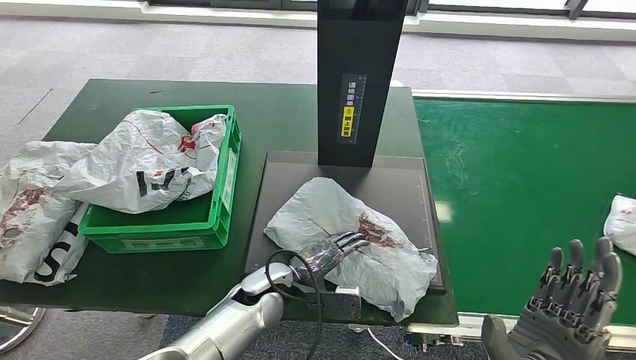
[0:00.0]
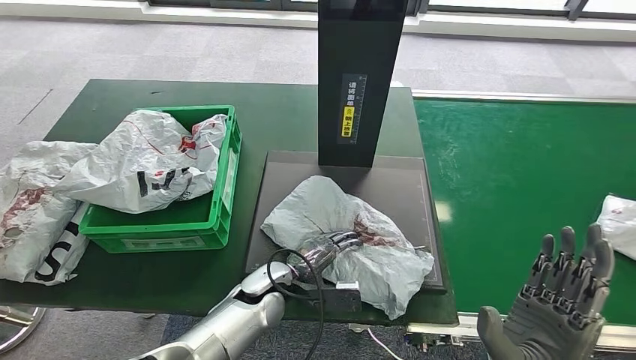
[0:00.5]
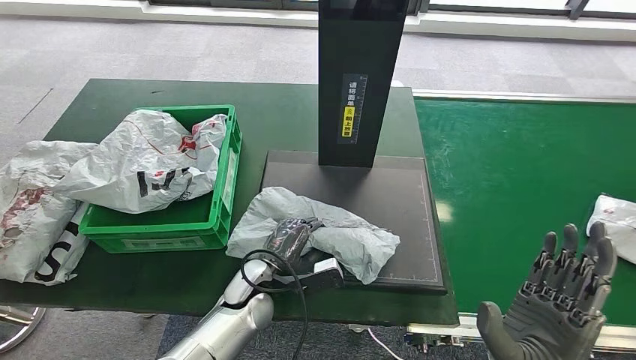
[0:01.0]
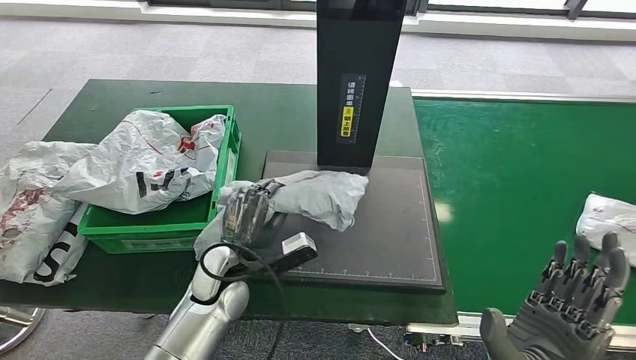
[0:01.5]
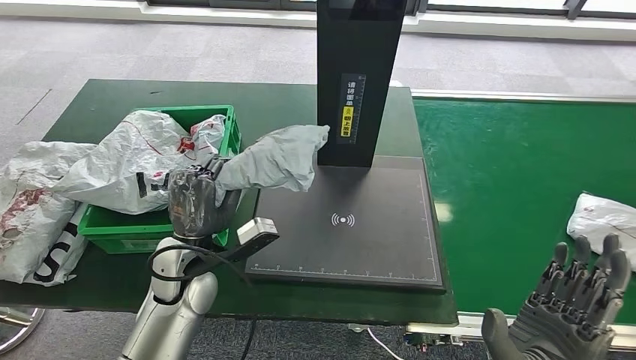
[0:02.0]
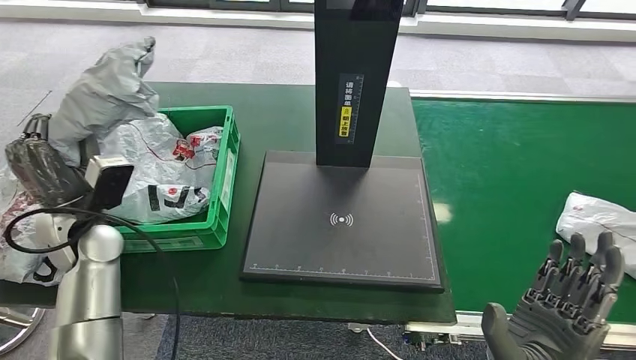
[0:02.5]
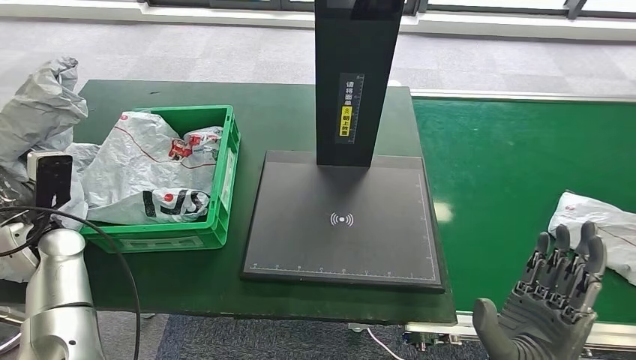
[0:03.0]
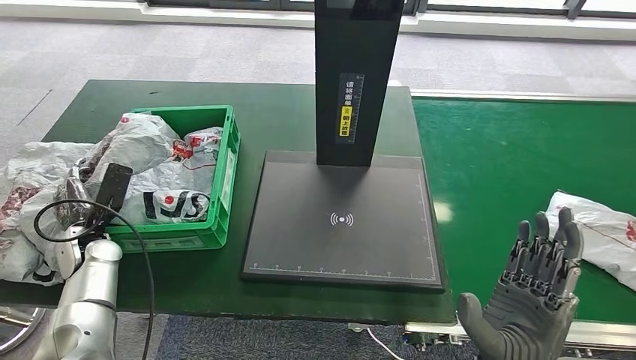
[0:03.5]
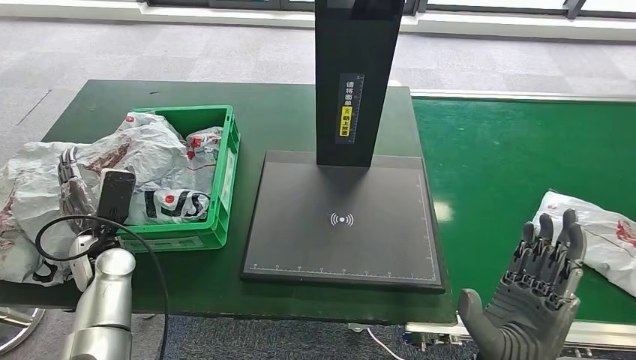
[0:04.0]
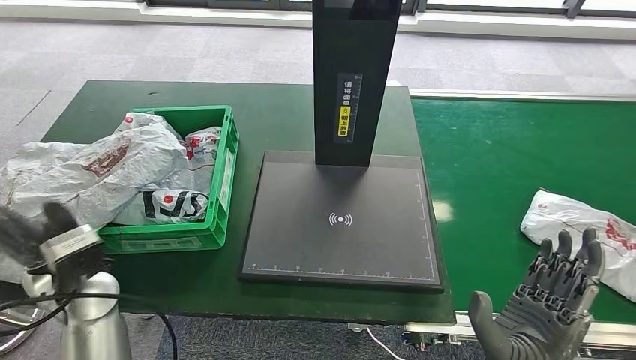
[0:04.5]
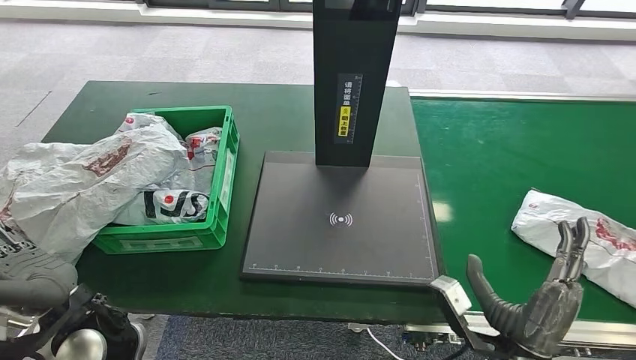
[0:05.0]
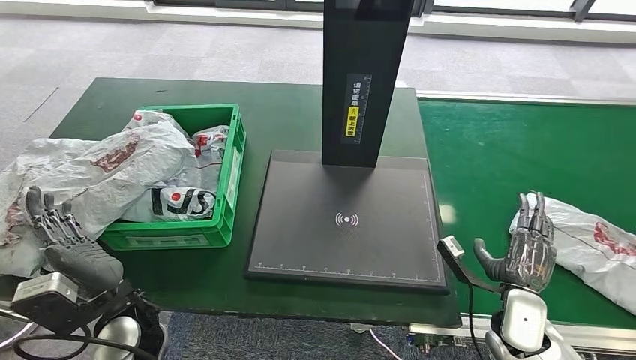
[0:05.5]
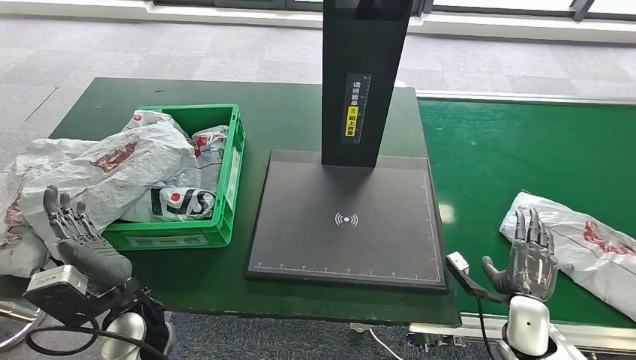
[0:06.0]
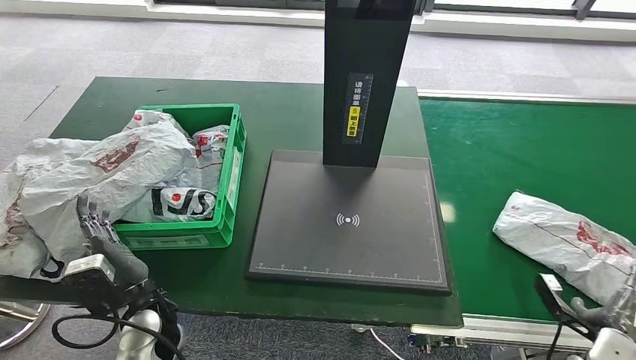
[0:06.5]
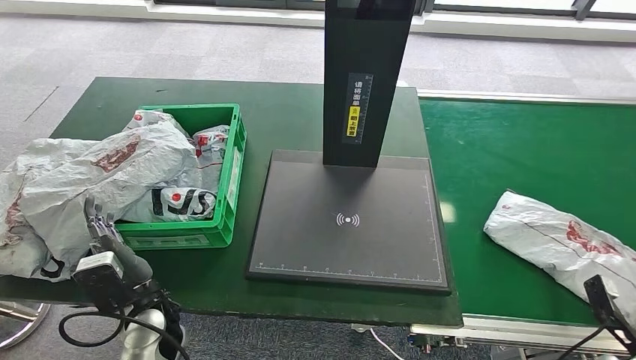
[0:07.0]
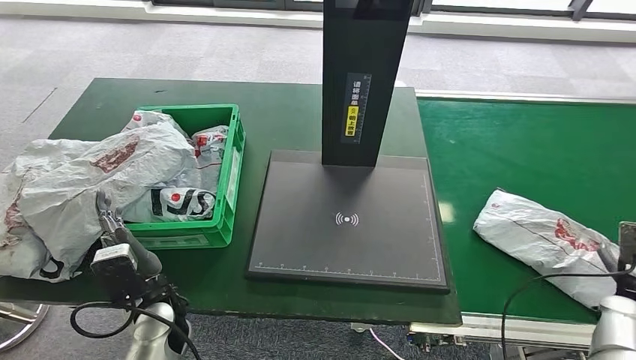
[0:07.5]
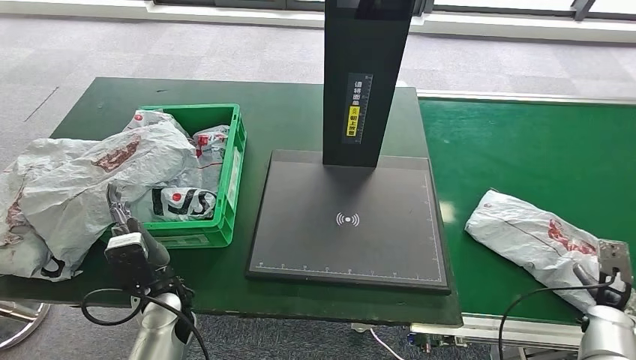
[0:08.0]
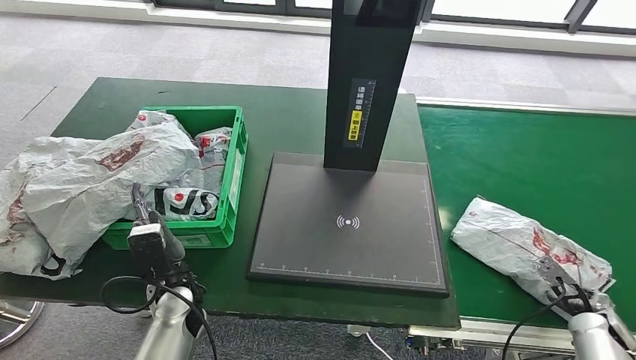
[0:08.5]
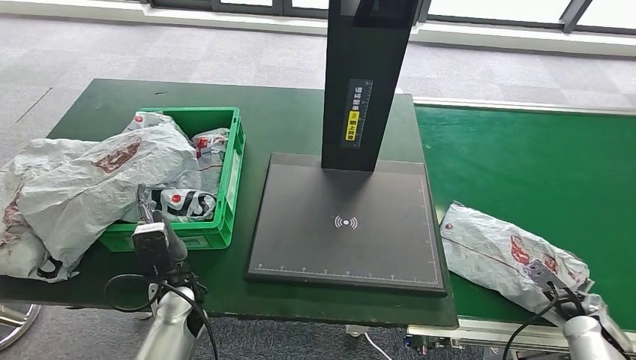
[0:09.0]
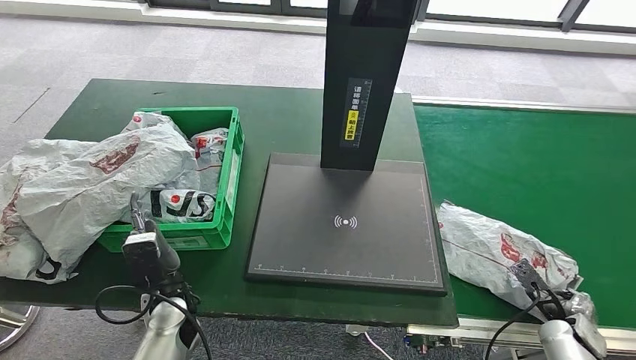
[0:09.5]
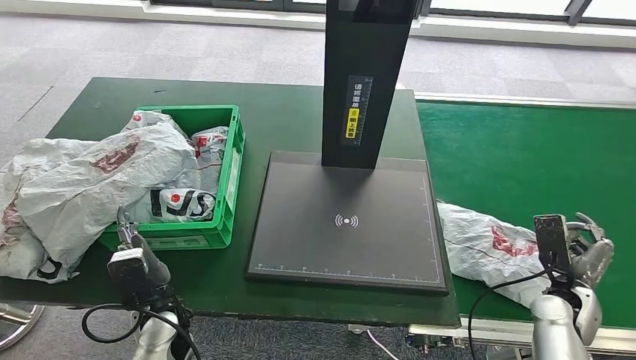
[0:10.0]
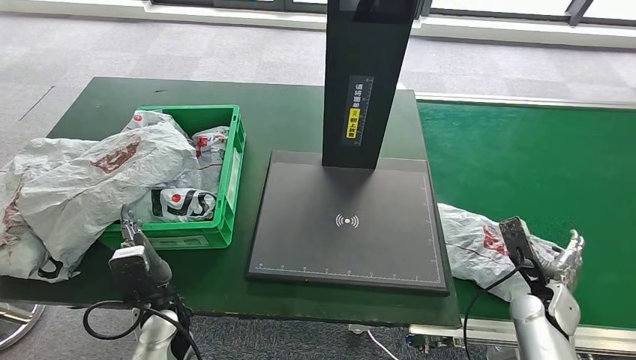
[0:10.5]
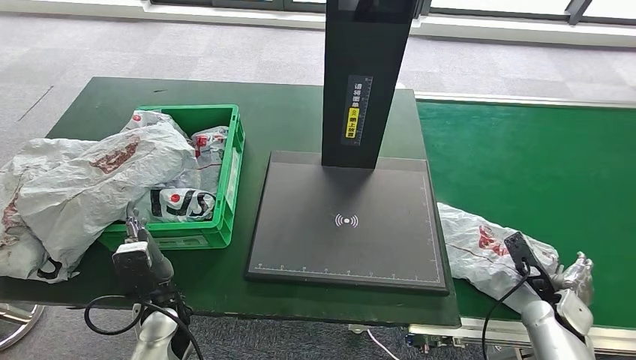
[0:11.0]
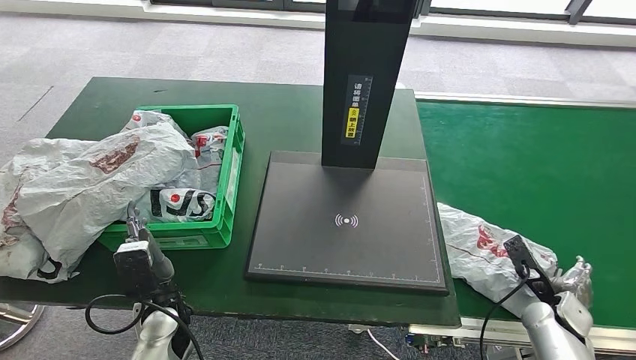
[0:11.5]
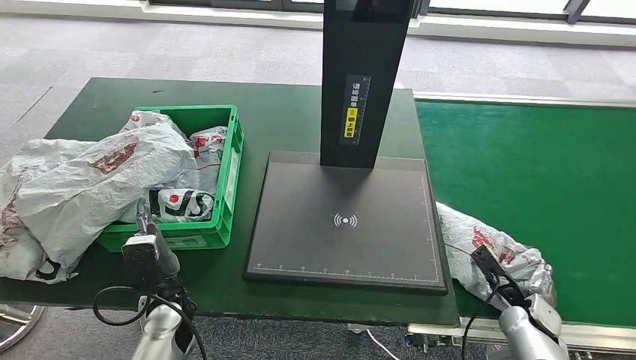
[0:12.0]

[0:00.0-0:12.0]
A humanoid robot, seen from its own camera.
Step, 0:01.0 to 0:02.0: Pick up the parcel from the inbound machine.
Step, 0:02.5 to 0:06.0: Place the parcel into the delivery box.
0:00.0 to 0:02.0: The left hand goes about 15 cm to the left and upward.
0:06.0 to 0:08.0: The left hand changes place by about 5 cm. The right hand goes approximately 10 cm to the right.
0:08.0 to 0:10.0: The right hand goes approximately 10 cm to the left.
0:10.0 to 0:12.0: The right hand shifts approximately 5 cm downward.

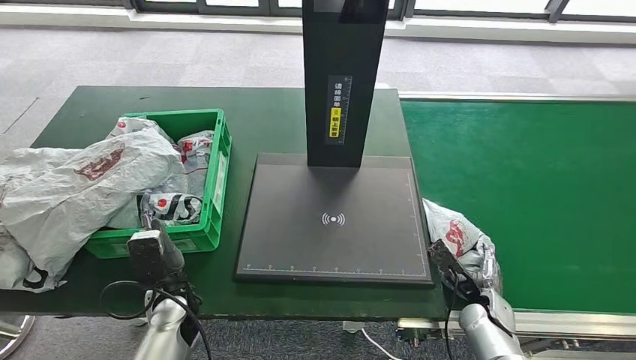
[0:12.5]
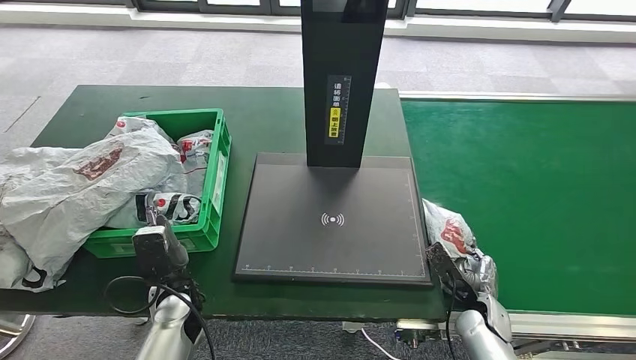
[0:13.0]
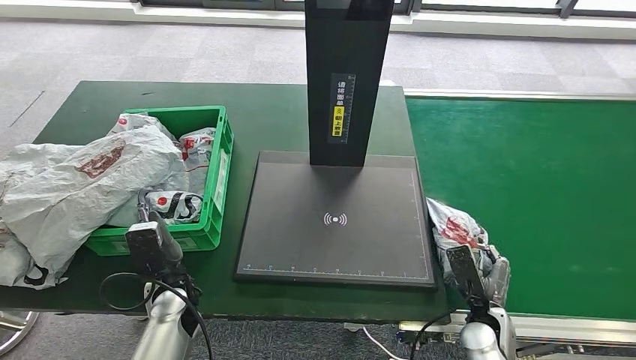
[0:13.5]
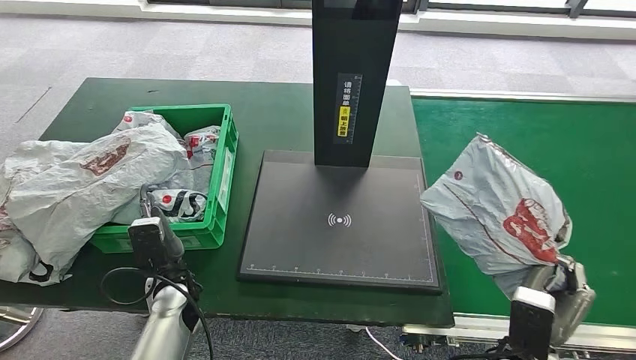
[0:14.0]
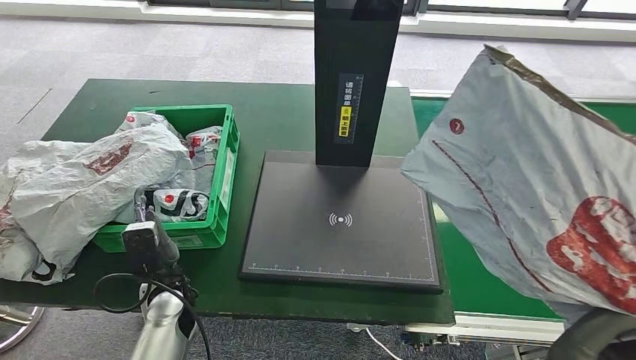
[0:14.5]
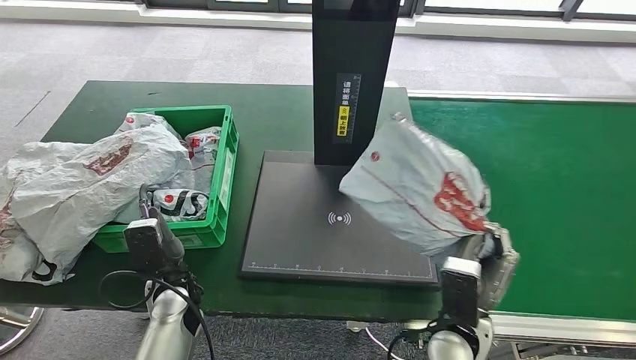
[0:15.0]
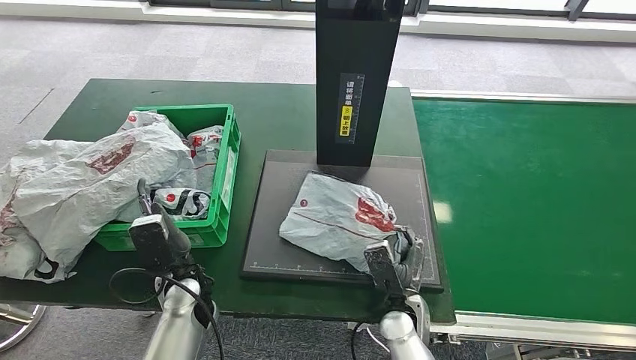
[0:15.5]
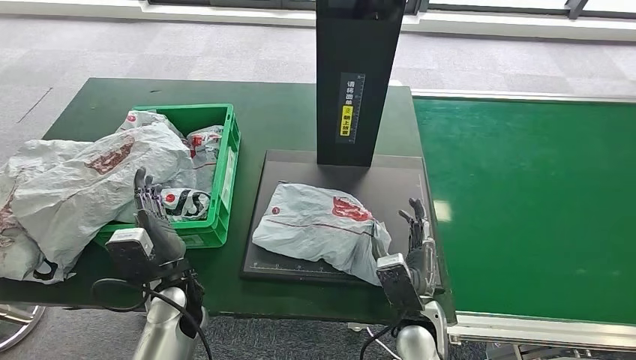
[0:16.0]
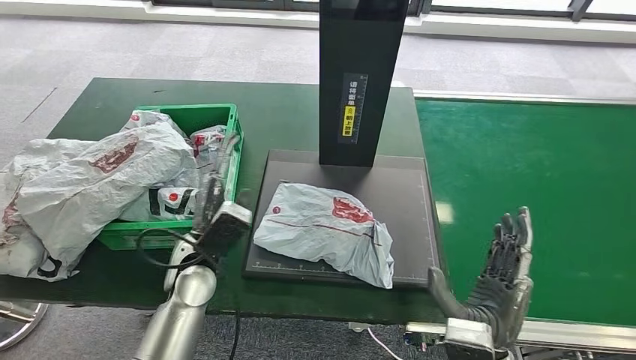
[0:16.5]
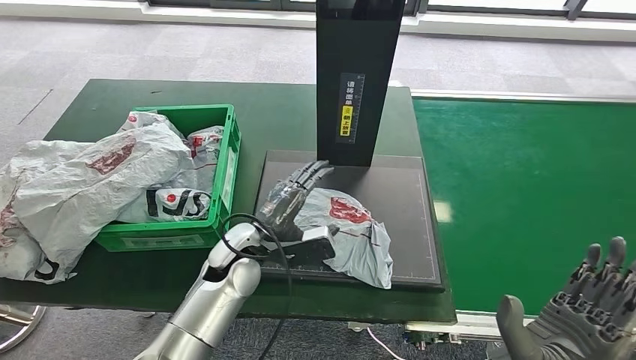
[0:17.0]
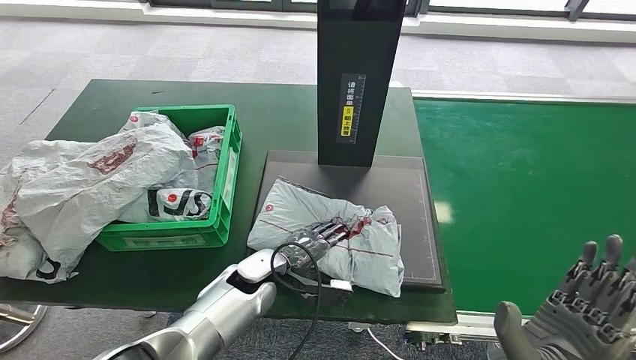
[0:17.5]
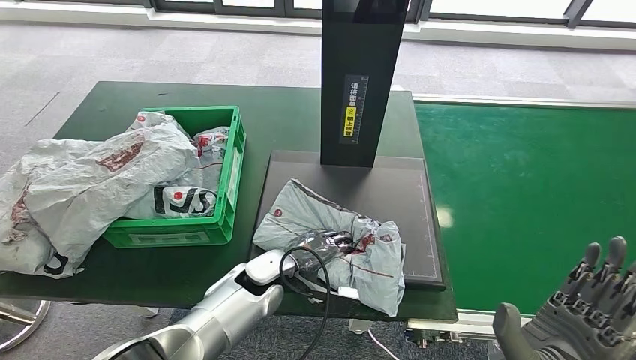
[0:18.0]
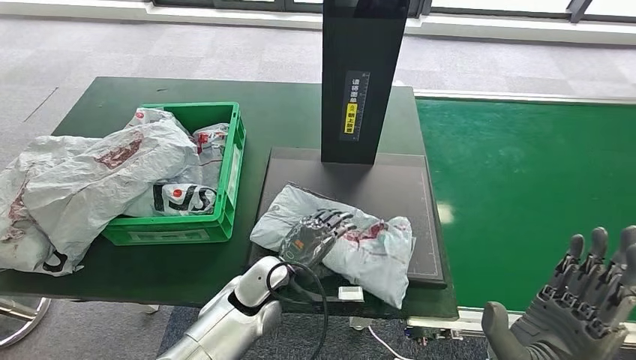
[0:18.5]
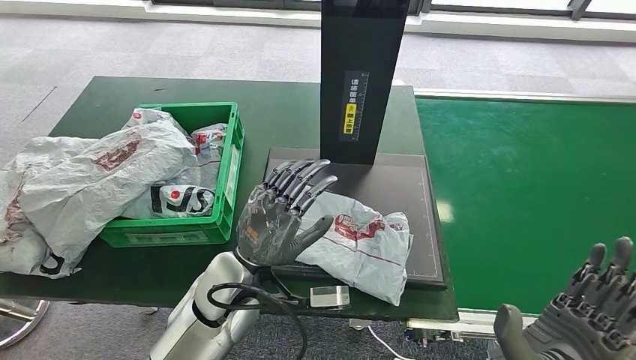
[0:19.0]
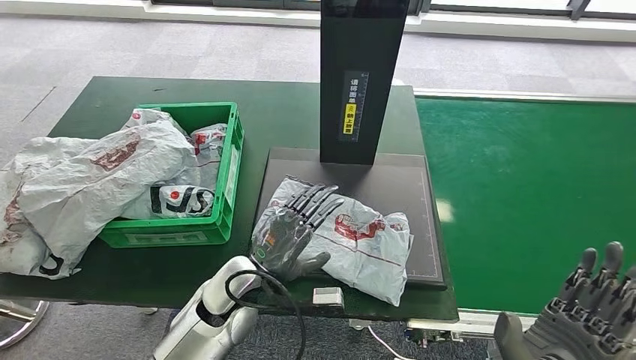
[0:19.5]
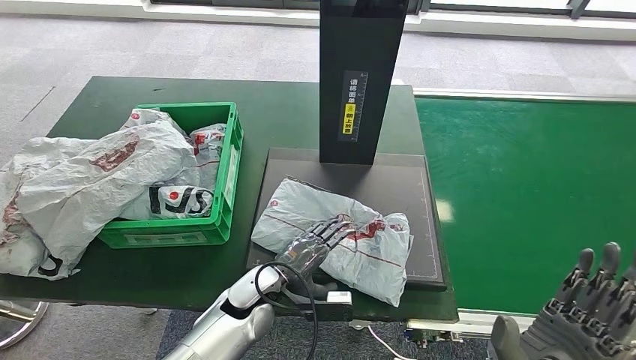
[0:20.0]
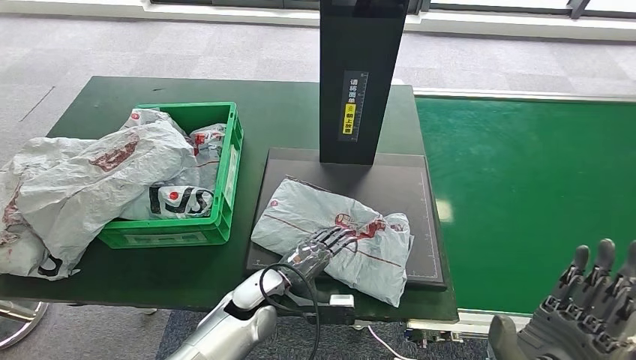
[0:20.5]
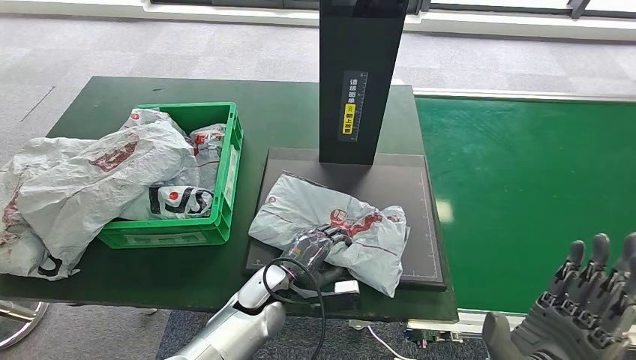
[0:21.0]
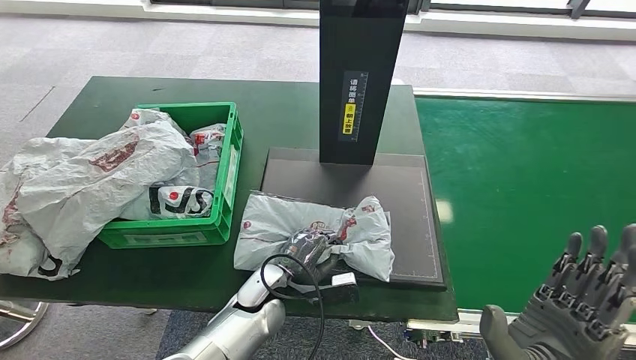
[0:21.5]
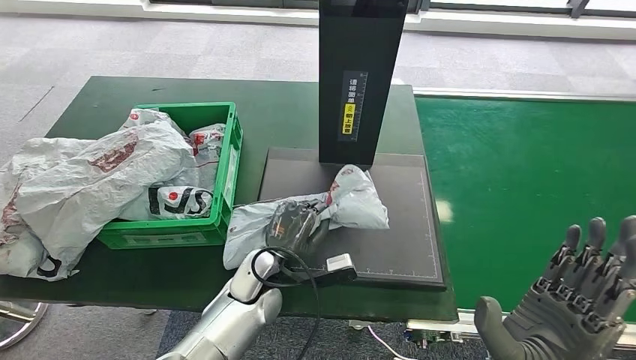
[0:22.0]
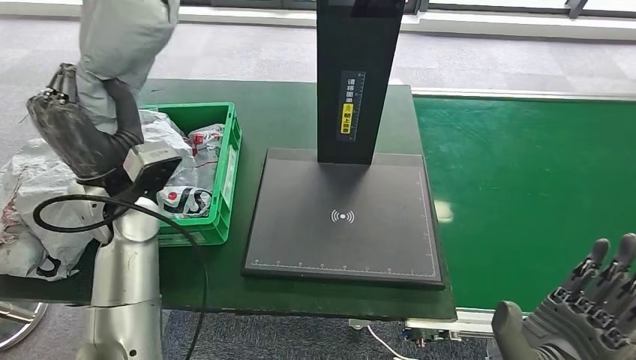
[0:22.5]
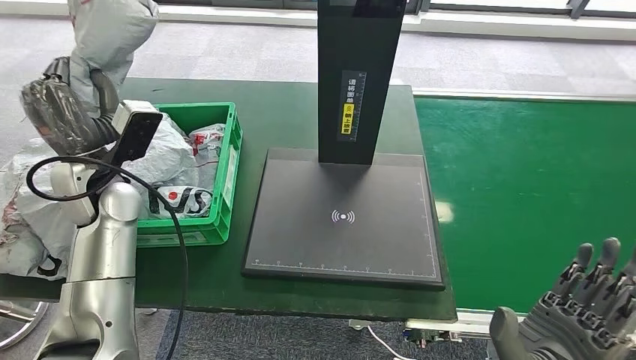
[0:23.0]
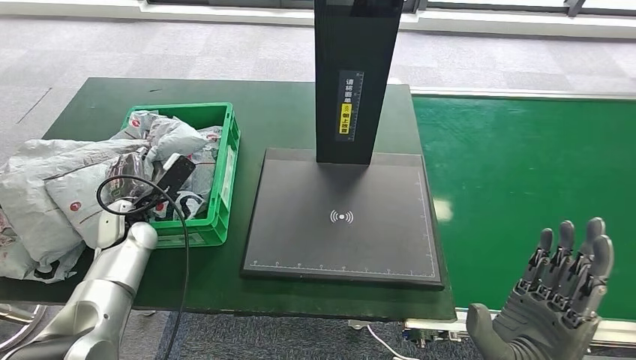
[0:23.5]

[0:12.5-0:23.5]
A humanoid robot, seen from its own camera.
Step, 0:12.5 to 0:14.5: Pick up the parcel from the conveyor belt.
Step, 0:15.0 to 0:17.0: Place the parcel onto the inbound machine.
Step, 0:17.5 to 0:22.0: Pick up the parcel from the inbound machine.
Step, 0:22.5 to 0:23.5: Place the parcel into the delivery box.
0:20.0 to 0:21.5: The hands stay close to where they were, moving slightly.
